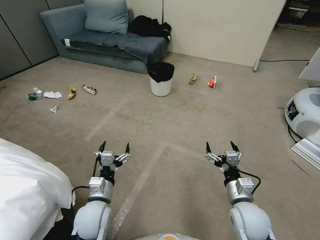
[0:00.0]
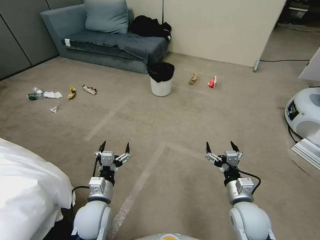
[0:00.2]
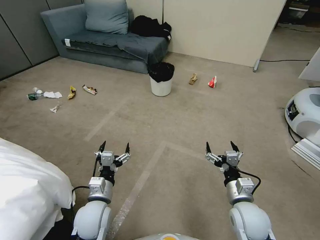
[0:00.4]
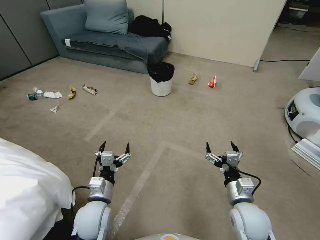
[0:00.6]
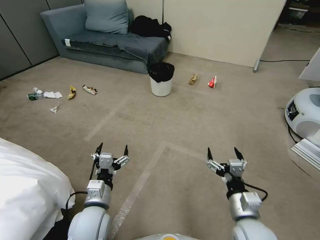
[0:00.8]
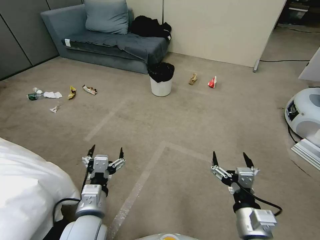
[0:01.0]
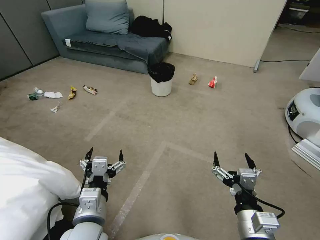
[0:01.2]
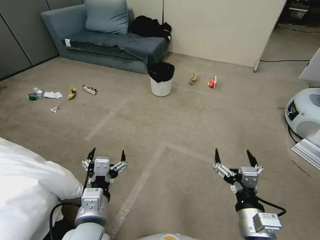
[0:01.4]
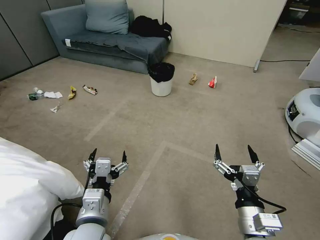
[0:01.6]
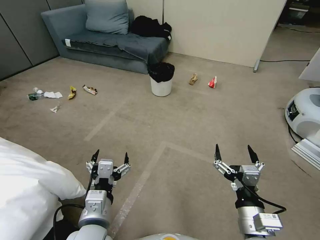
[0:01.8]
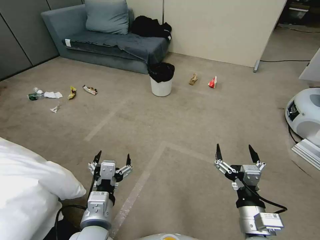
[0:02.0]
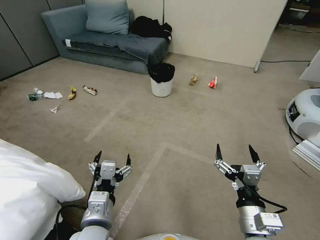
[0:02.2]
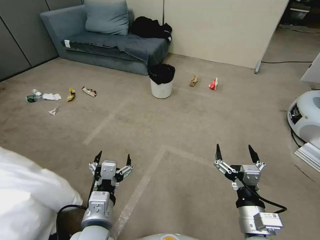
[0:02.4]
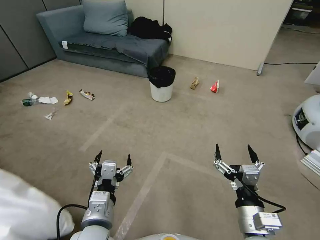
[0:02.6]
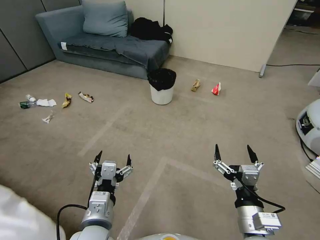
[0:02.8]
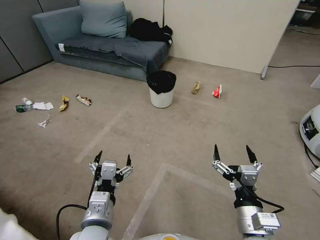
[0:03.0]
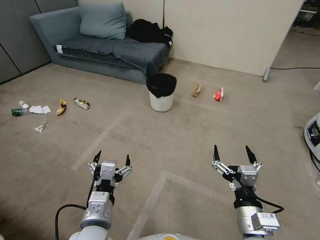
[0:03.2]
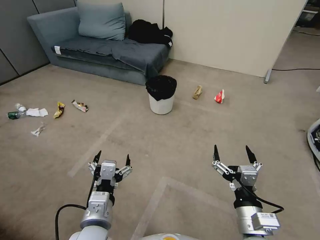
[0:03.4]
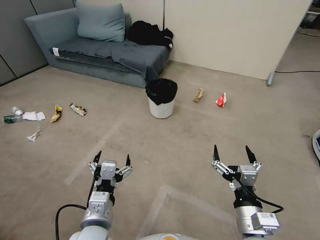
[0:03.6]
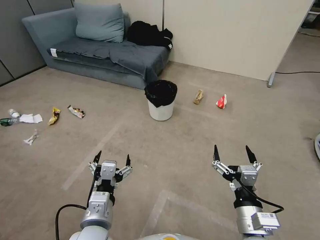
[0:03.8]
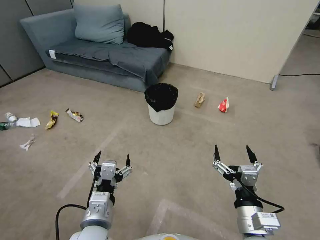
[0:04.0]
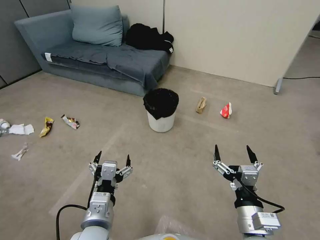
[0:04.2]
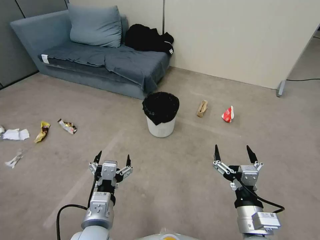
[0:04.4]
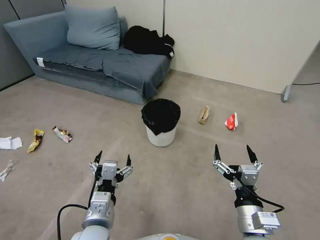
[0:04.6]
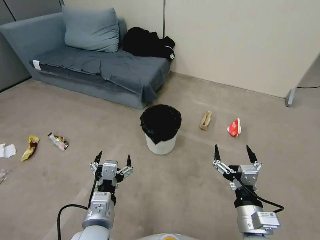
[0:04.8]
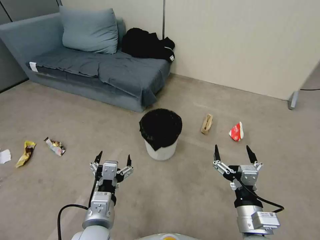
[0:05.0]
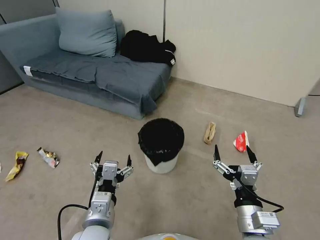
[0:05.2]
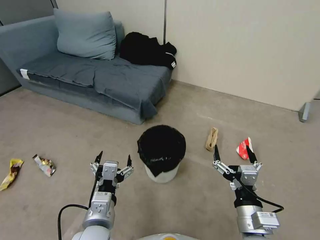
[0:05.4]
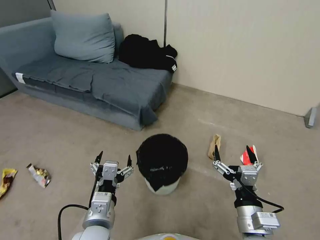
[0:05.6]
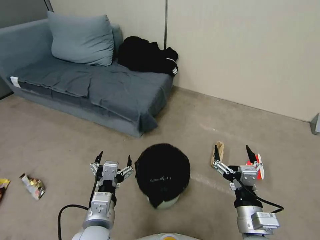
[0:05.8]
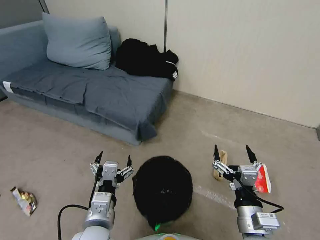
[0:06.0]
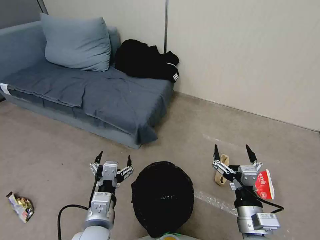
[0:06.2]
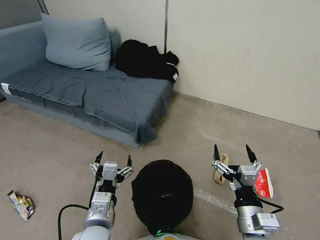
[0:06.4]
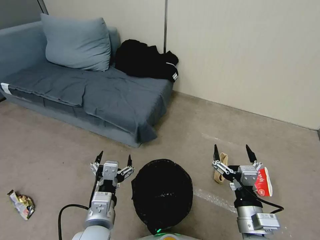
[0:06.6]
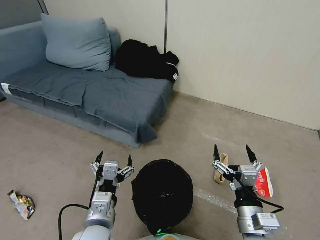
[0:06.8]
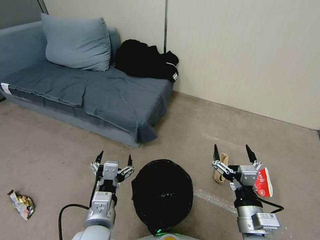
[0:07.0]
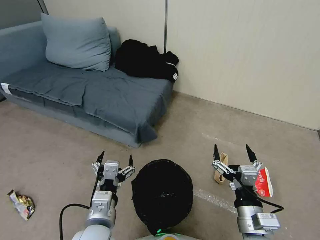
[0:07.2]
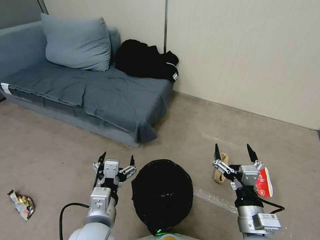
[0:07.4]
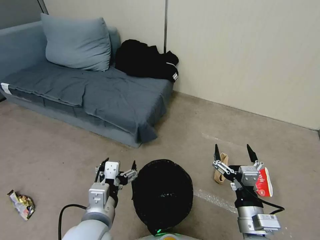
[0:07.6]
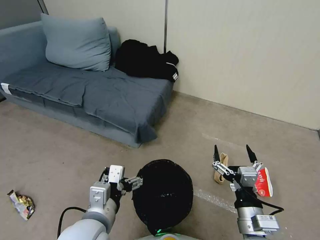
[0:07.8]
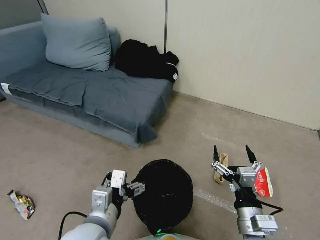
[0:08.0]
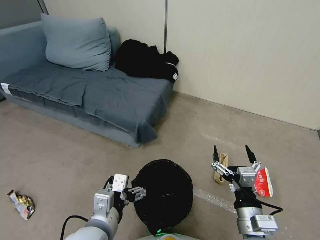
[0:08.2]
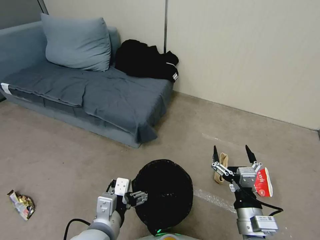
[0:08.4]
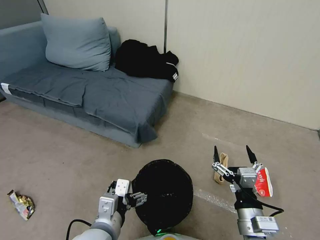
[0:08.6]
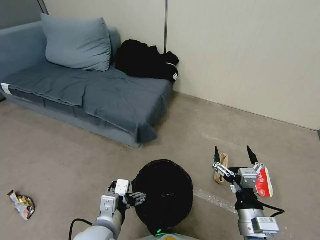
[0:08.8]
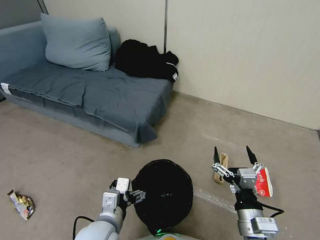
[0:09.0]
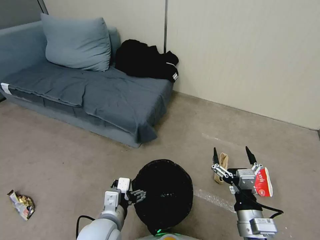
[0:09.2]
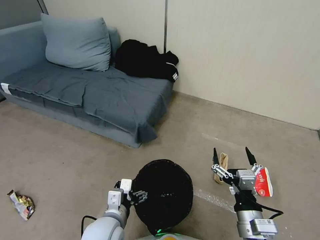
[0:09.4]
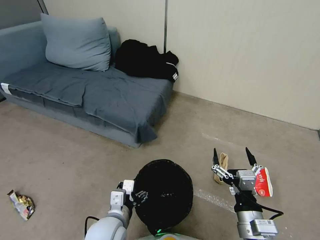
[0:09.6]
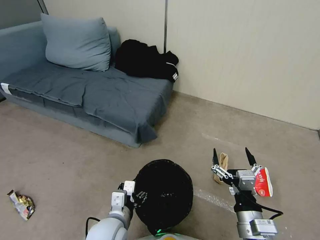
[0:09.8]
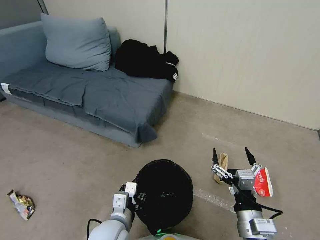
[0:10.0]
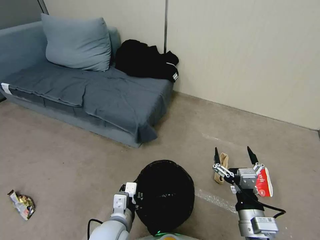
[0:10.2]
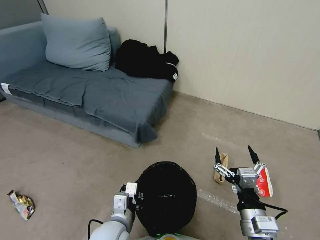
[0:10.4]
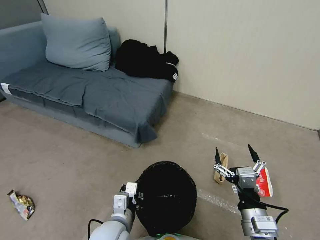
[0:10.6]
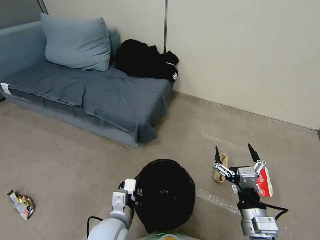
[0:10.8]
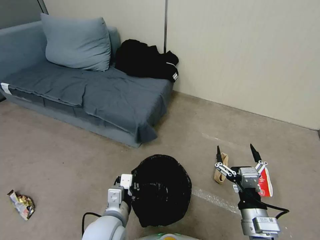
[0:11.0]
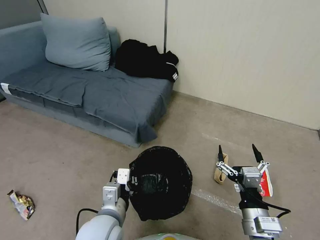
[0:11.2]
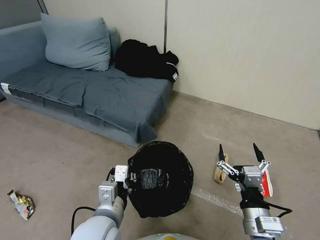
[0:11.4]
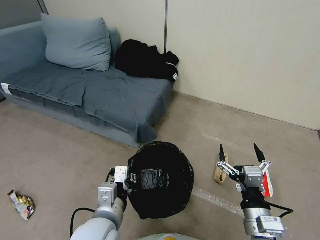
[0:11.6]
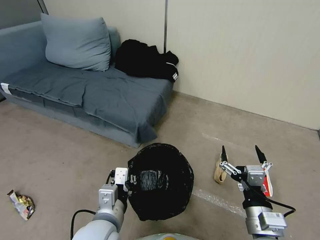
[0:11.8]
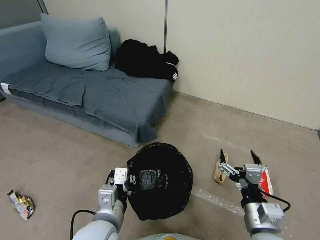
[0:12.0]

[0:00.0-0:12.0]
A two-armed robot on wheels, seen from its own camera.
Task of the whole recording: Pick up the trash bin, then pick up the garbage from the floor and place it into the trash bin.
0:06.0 to 0:07.6: The grippers stay close to where they were, moving slightly.
0:07.6 to 0:09.0: The grippers stay close to where they were, moving slightly.
0:09.0 to 0:10.4: The left gripper travels downward by about 5 cm, and closes up.
0:10.4 to 0:12.0: The left gripper heads upward, covering roughly 10 cm.

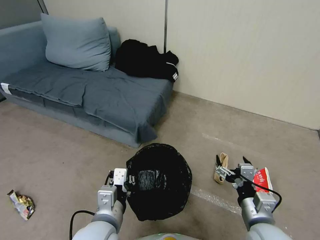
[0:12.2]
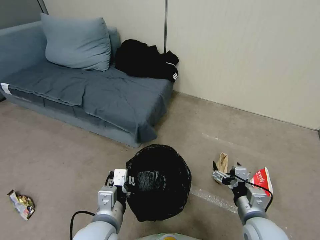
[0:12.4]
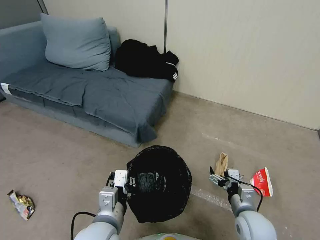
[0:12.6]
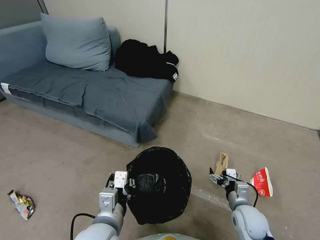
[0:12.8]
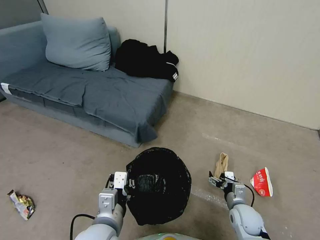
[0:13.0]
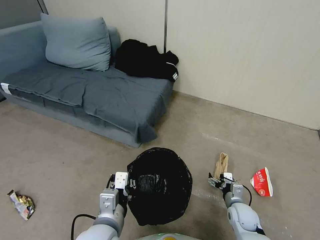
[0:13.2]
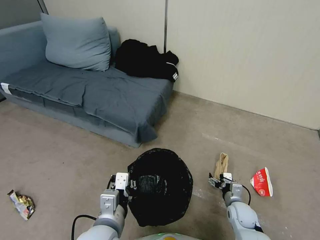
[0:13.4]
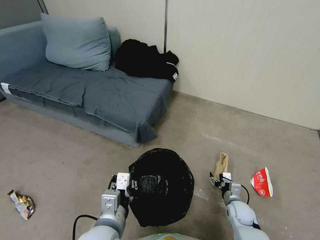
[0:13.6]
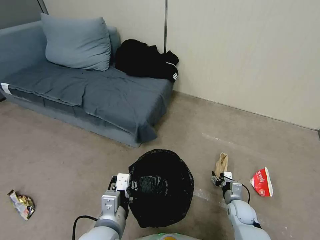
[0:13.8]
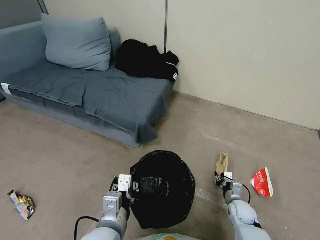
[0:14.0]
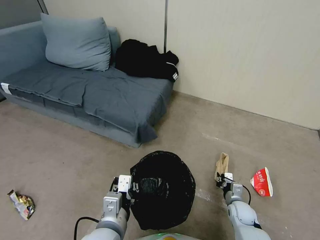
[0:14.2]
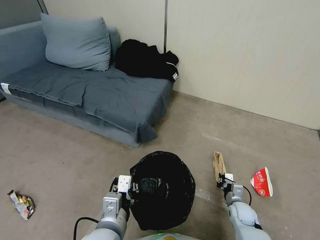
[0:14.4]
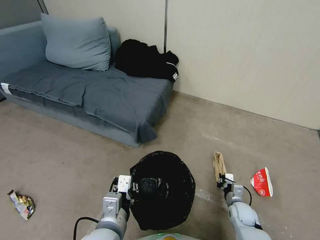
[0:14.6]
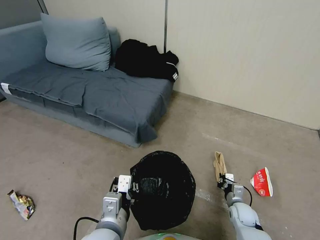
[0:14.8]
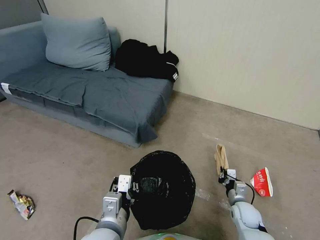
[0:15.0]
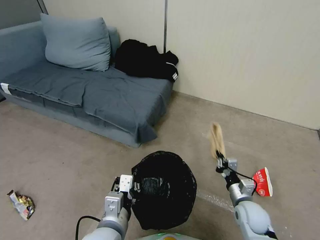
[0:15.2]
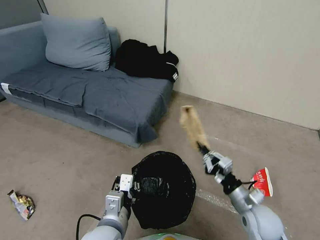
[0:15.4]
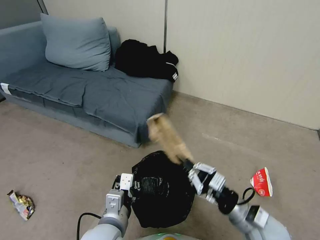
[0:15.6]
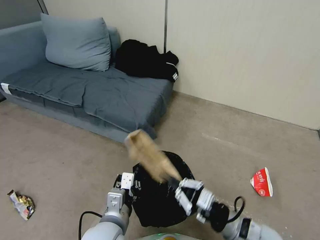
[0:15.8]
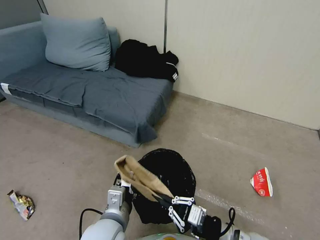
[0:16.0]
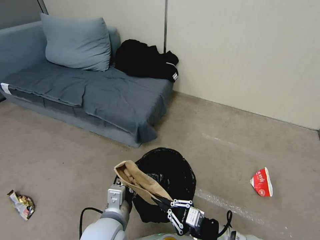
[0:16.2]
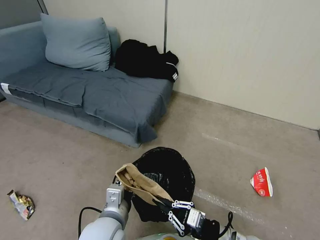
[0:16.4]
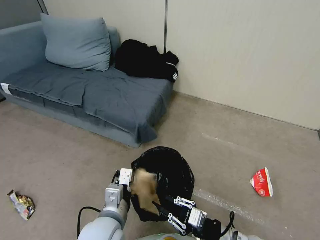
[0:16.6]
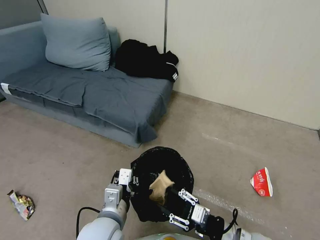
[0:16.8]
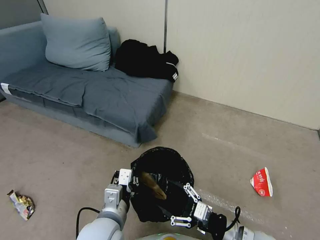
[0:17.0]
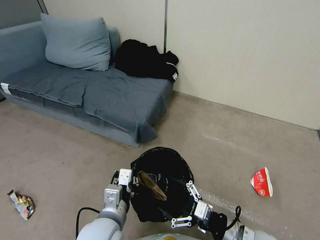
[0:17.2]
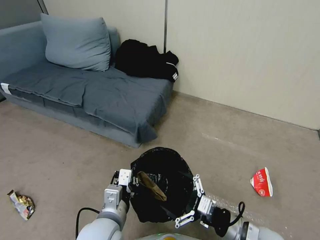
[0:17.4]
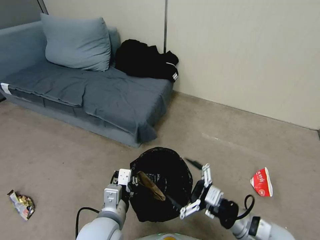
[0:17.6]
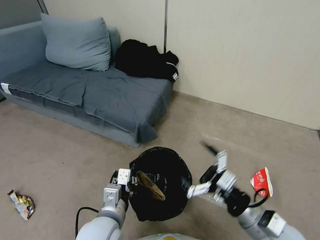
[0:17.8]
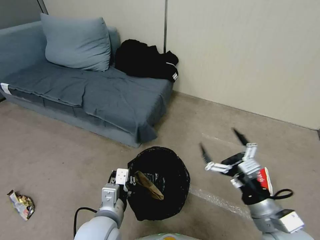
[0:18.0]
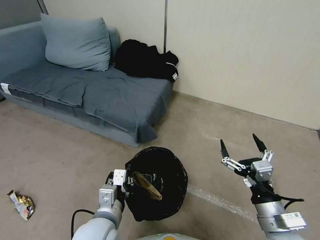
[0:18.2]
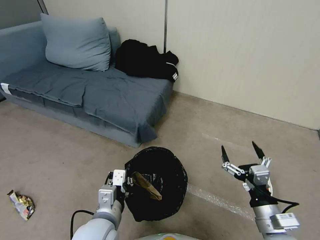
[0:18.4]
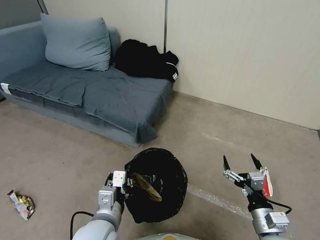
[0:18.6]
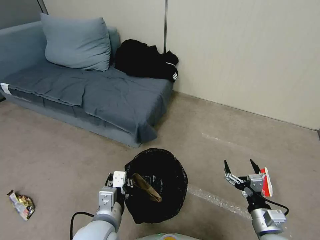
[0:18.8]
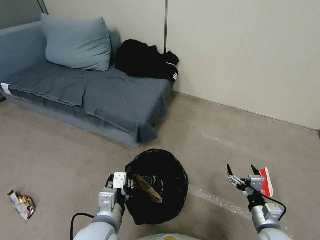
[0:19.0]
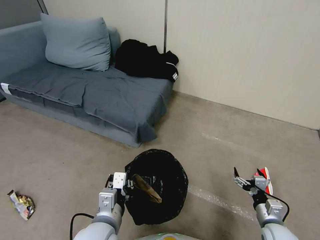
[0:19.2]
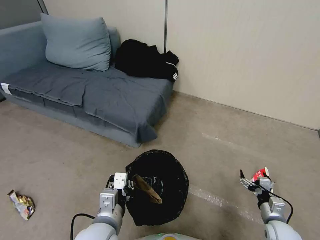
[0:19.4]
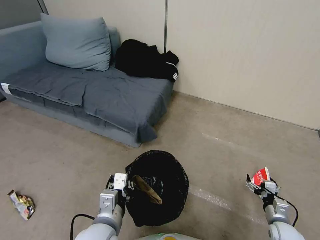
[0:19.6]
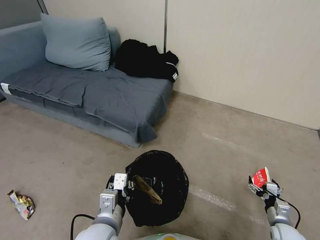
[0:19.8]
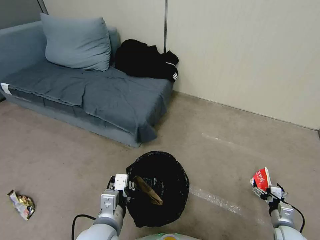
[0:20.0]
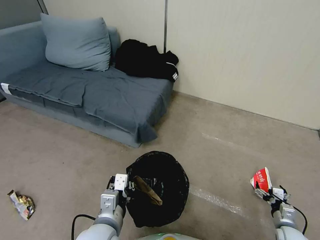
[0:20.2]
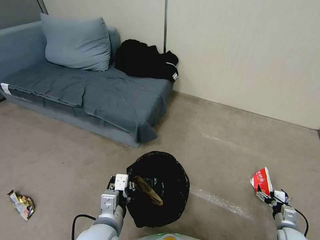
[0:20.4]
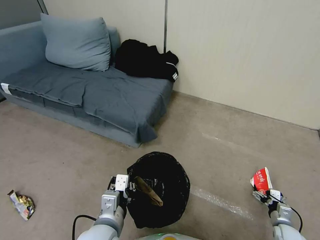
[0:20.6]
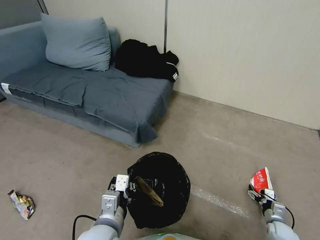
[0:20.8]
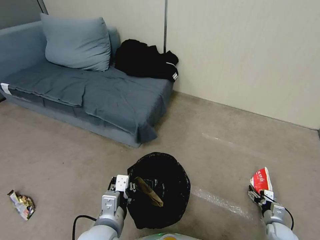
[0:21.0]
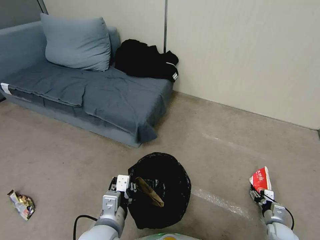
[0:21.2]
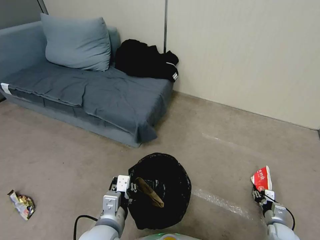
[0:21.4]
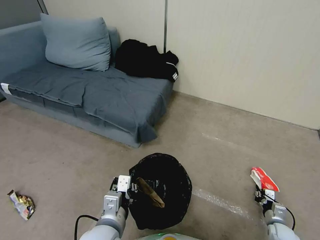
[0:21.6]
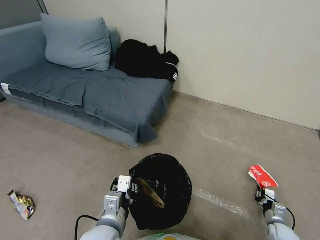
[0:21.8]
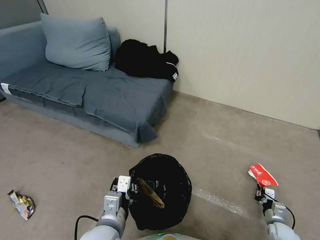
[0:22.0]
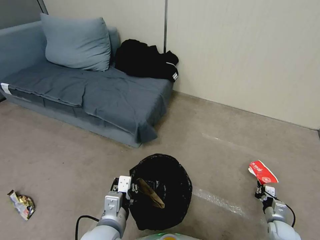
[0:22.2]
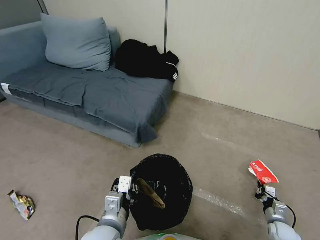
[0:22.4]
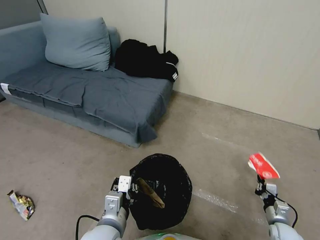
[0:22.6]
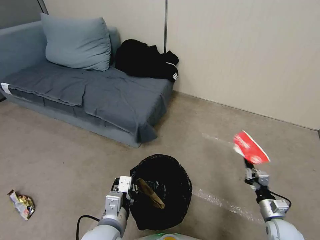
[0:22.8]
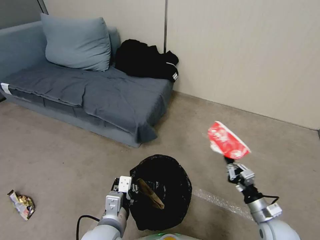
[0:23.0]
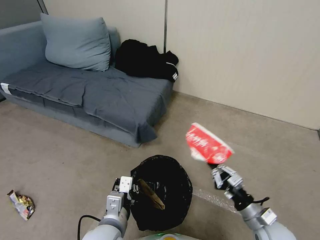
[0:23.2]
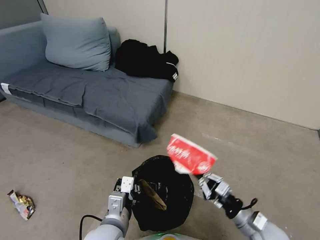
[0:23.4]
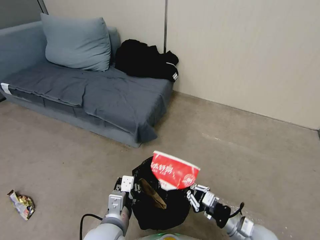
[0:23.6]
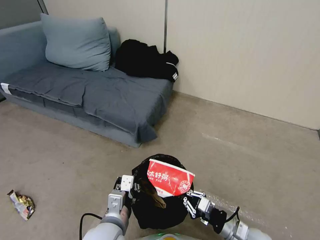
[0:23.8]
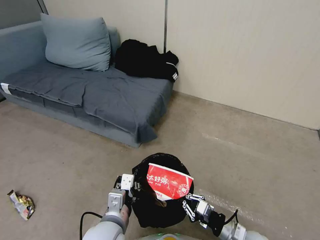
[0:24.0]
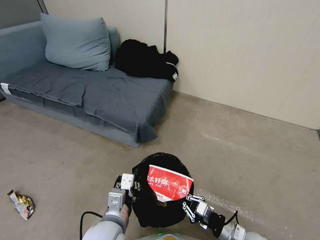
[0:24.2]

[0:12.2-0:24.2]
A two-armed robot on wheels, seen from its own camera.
Task of the whole recording: Pick up the trash bin, then pick up the garbage from the floor and place it into the trash bin.
0:12.2 to 0:13.8: The right gripper is displaced downward and forward by about 25 cm.
0:13.8 to 0:15.2: The right gripper heads upward, covering approximately 10 cm, and closes.
0:15.2 to 0:16.6: The right gripper goes about 15 cm backward, upward and to the left.
0:16.6 to 0:18.2: The right gripper goes some 10 cm upward, and opens.
0:18.2 to 0:19.8: The right gripper moves downward and to the right, roughly 30 cm.
0:19.8 to 0:21.2: The right gripper moves downward, some 5 cm, and closes.
0:21.2 to 0:22.6: The right gripper moves upward, some 5 cm, and closes up.
0:22.6 to 0:24.2: The right gripper travels to the left and upward by roughly 20 cm.
